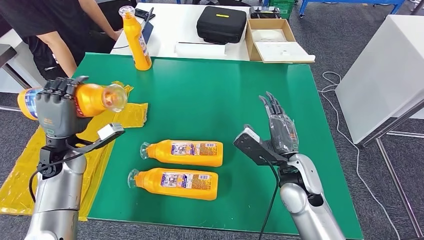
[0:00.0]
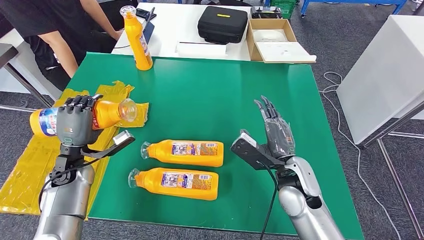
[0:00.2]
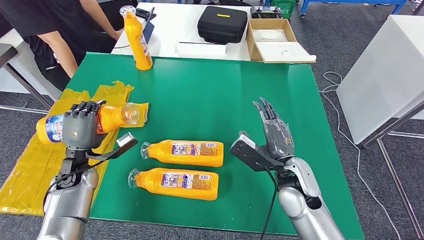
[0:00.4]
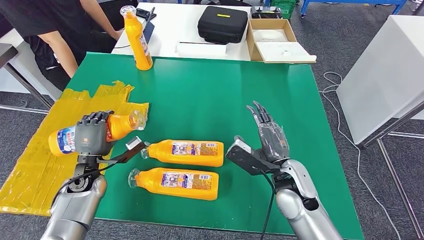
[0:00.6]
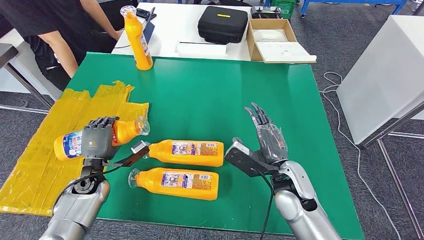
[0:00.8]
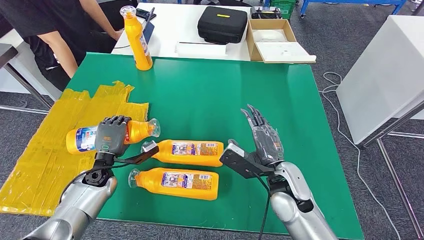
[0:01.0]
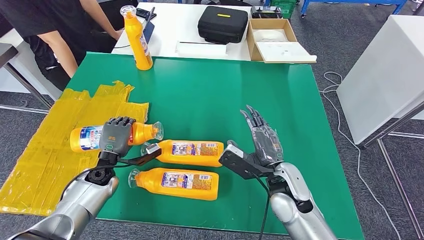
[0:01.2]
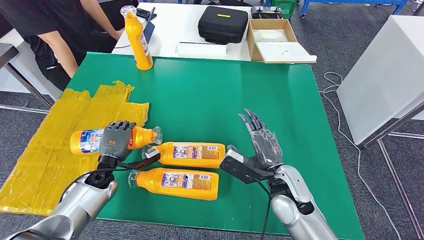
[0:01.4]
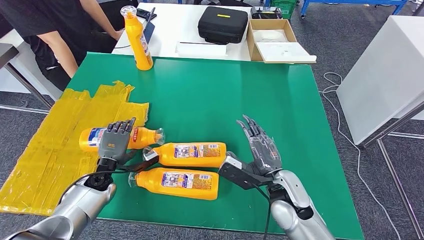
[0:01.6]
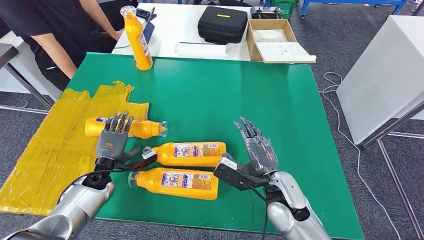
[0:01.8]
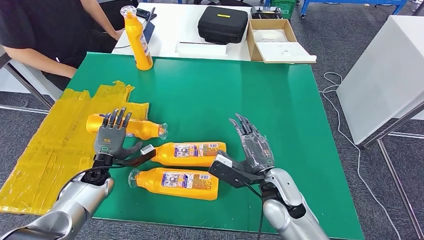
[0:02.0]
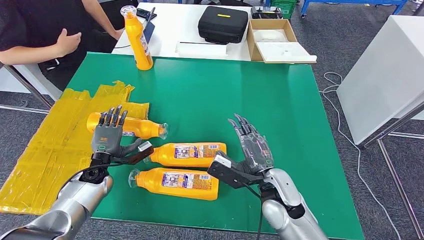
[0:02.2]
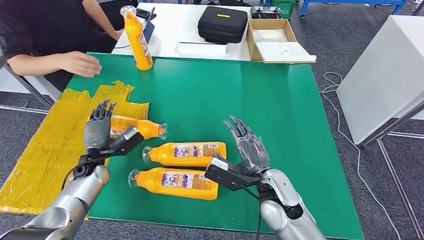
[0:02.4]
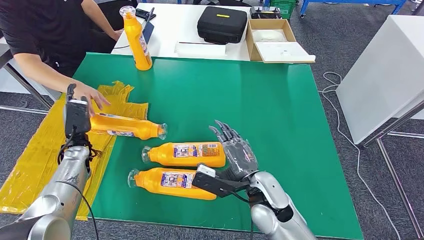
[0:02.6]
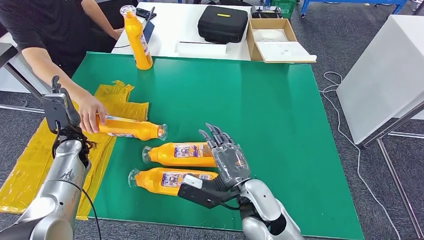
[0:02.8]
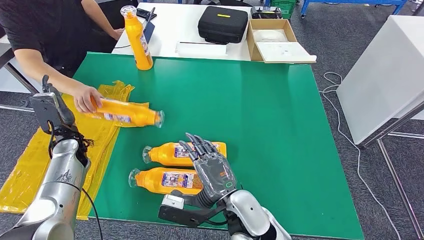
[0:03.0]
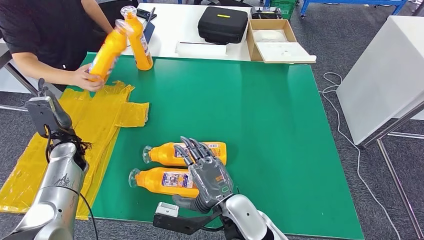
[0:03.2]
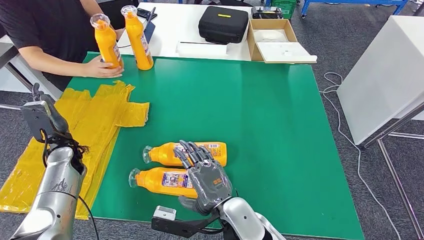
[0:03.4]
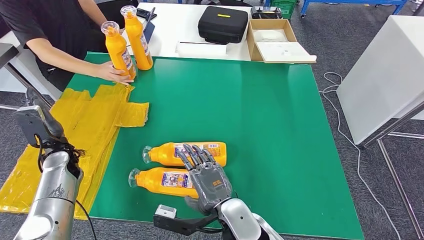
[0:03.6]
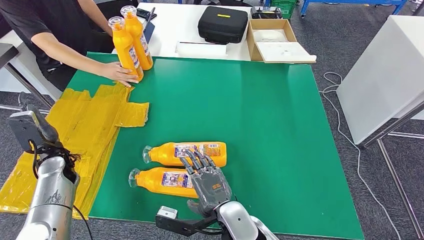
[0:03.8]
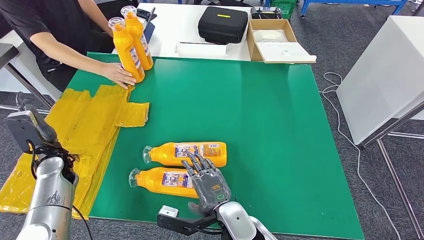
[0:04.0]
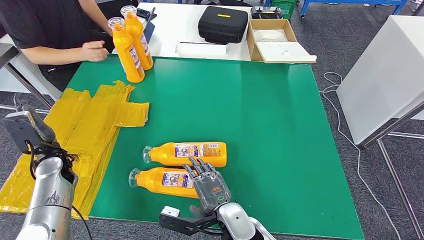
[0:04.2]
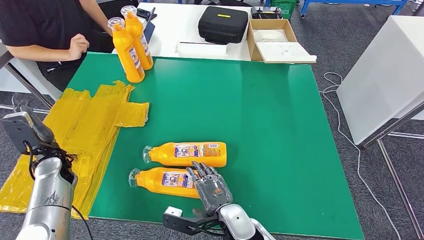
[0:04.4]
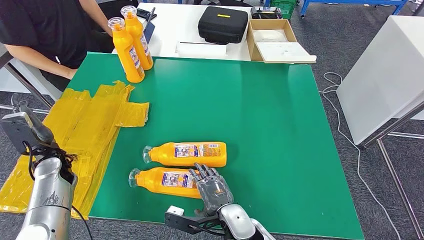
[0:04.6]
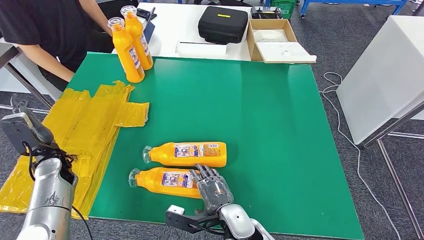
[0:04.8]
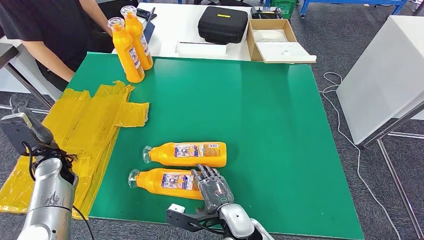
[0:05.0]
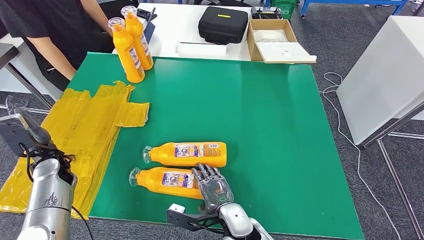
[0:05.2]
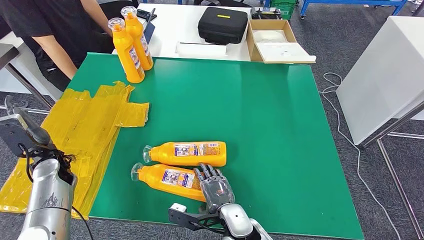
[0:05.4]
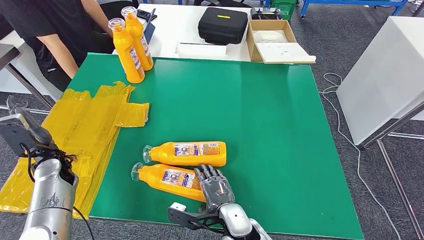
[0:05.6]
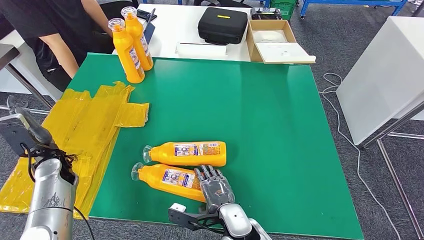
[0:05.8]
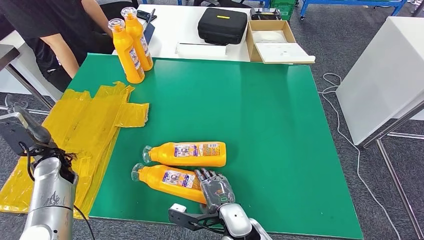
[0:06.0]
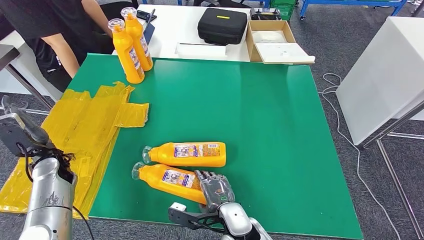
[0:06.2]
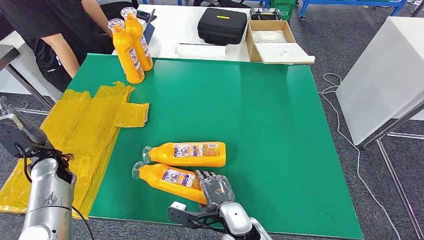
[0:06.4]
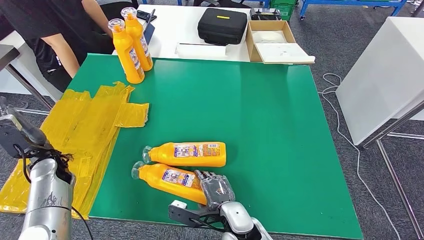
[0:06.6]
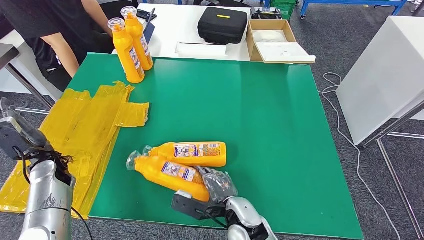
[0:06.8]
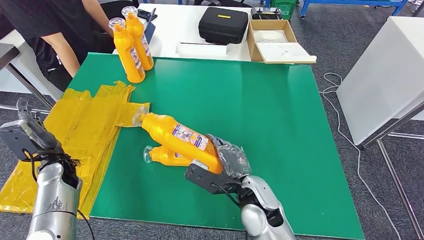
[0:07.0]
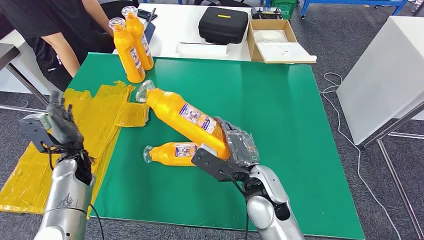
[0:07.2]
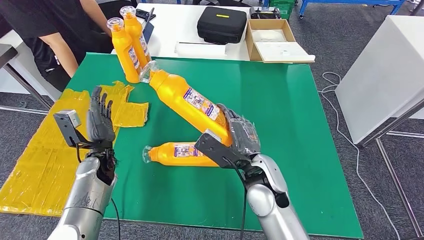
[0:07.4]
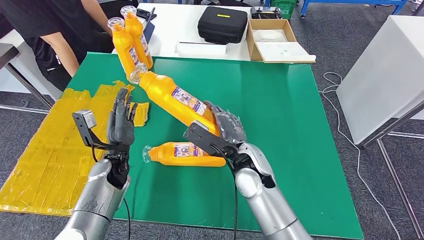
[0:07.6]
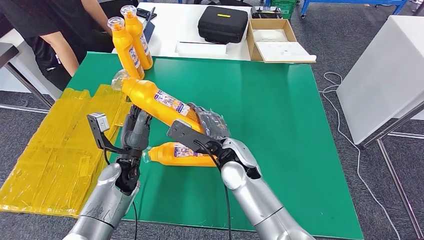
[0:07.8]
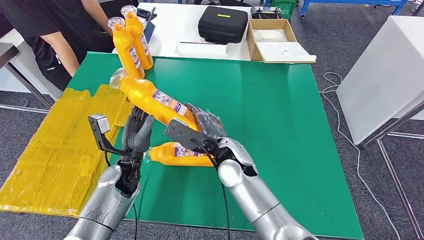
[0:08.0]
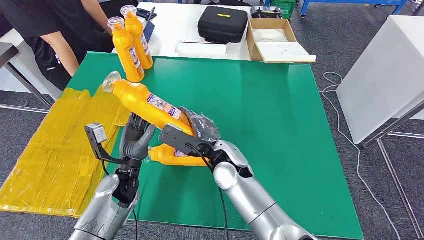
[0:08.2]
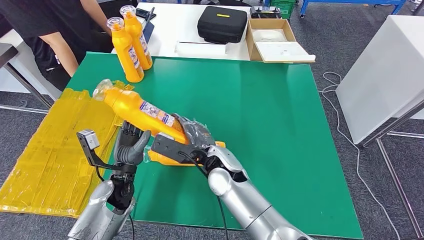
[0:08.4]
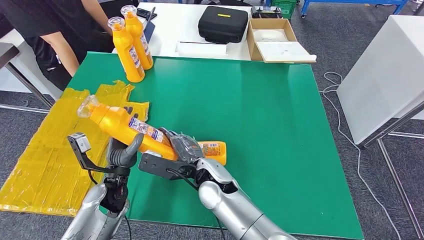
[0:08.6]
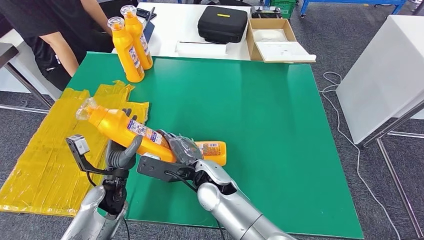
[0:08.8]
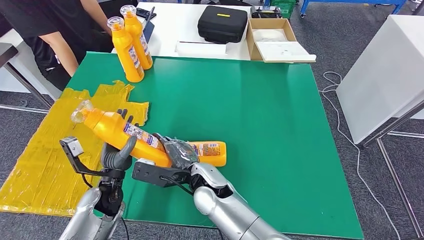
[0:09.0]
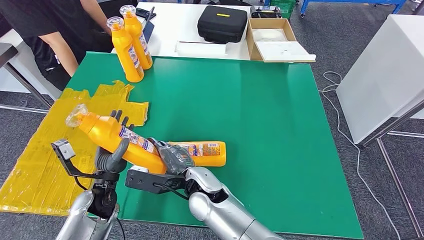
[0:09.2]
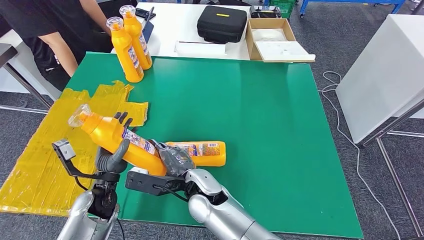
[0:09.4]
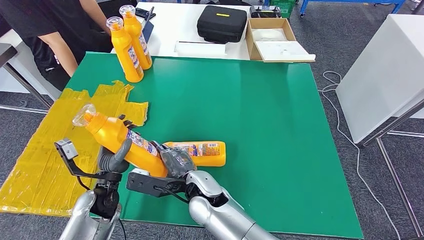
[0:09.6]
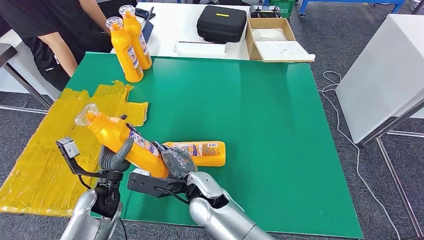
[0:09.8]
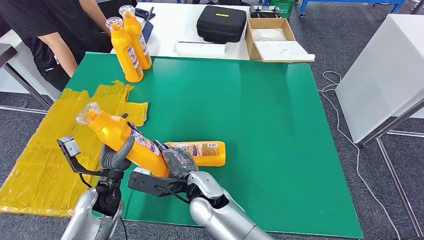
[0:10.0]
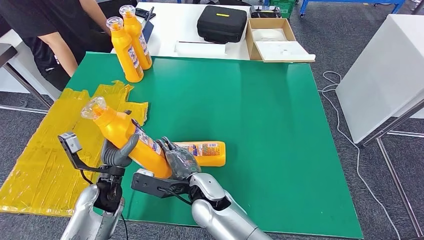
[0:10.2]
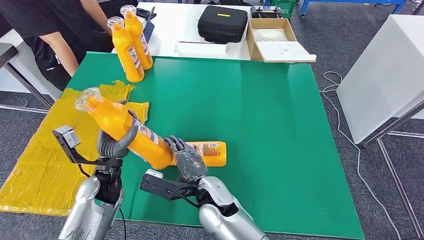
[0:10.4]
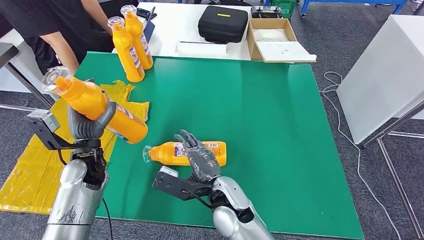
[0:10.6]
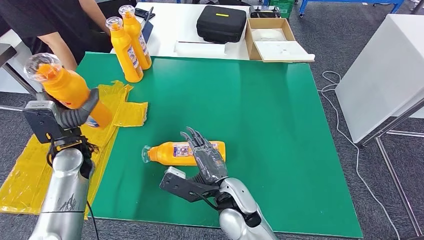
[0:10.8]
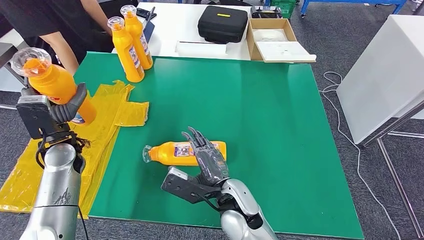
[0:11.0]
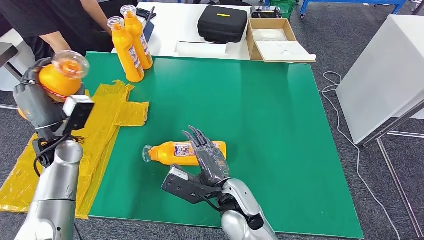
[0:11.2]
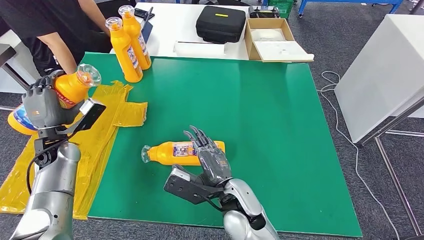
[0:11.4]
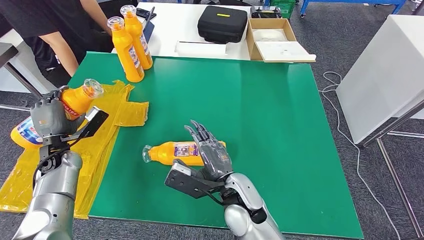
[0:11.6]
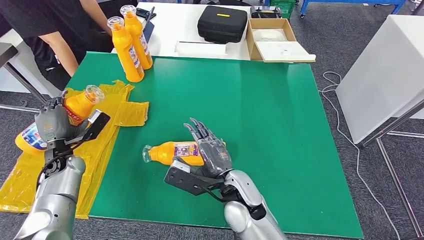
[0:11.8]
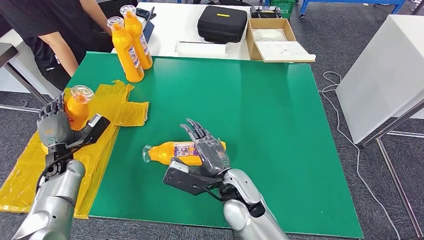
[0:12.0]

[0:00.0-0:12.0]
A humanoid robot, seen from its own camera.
Step, 0:00.0 to 0:02.4: Flip the fast-moving consumer goods bottle to the front side.
Step, 0:05.4 to 0:08.6: Pick up the fast-moving consumer goods bottle from the table.
0:03.0 to 0:04.4: The left hand changes place by about 5 cm, while the right hand is displaced downward by about 10 cm.
0:04.4 to 0:06.0: The hands stay close to where they were, moving slightly.
0:07.6 to 0:09.0: The right hand shifts roughly 10 cm to the left and downward. The left hand moves backward, some 5 cm.
0:09.0 to 0:10.4: The hands make only small movements.
0:10.4 to 0:12.0: The left hand heads to the left, covering about 15 cm, while the right hand ends up roughly 5 cm from where it was.

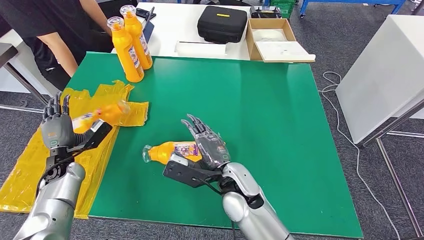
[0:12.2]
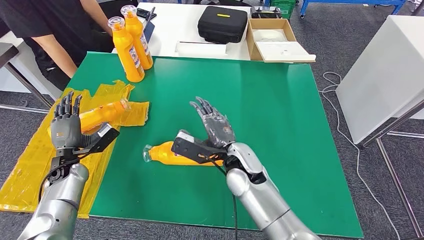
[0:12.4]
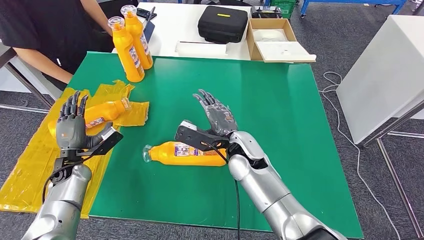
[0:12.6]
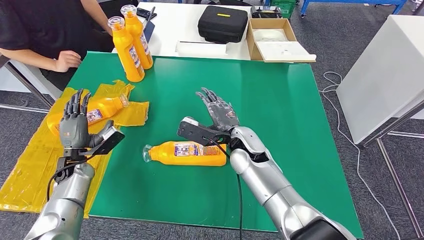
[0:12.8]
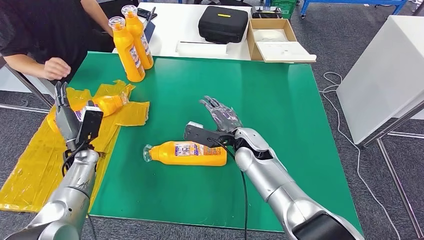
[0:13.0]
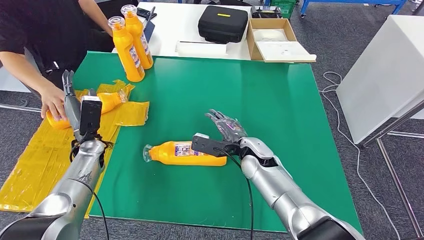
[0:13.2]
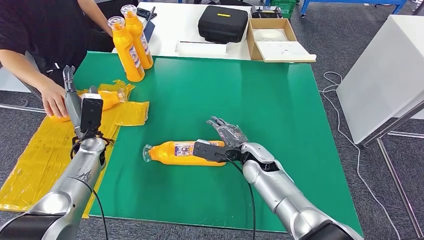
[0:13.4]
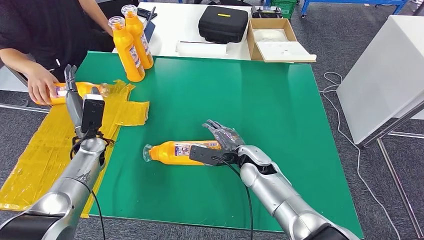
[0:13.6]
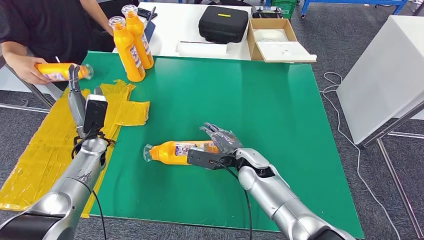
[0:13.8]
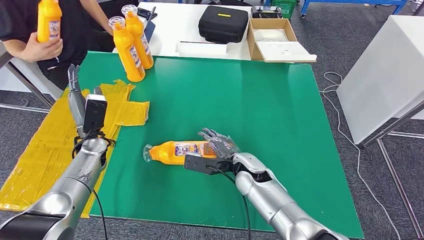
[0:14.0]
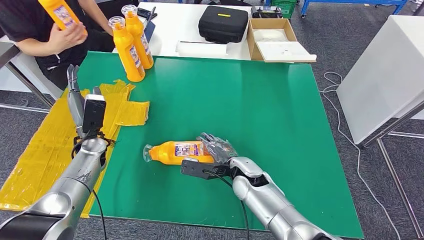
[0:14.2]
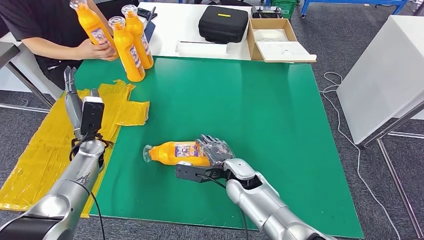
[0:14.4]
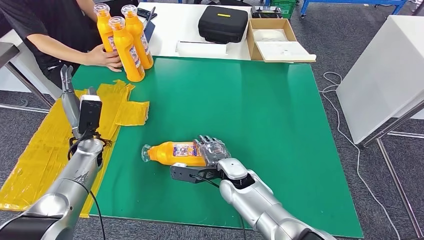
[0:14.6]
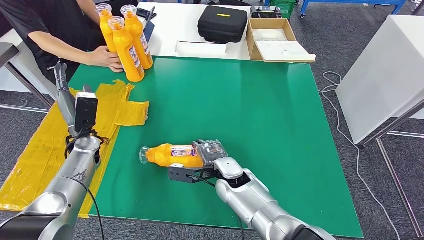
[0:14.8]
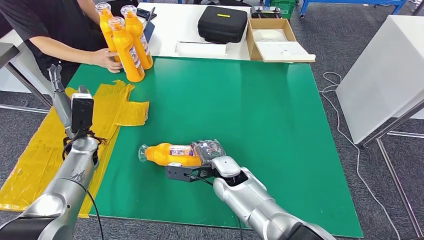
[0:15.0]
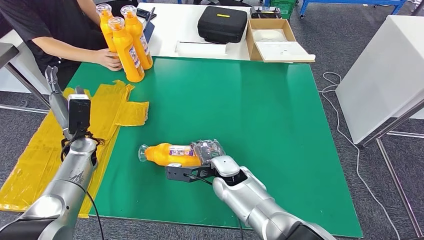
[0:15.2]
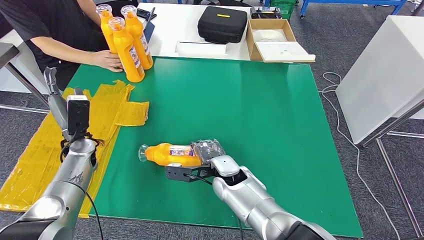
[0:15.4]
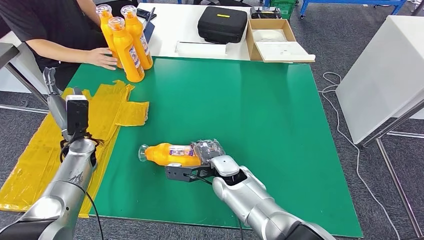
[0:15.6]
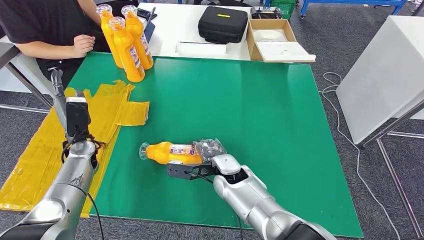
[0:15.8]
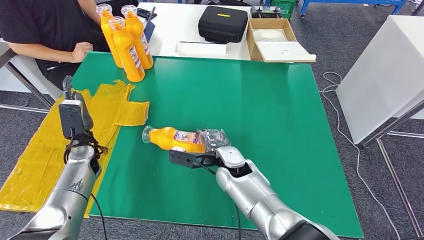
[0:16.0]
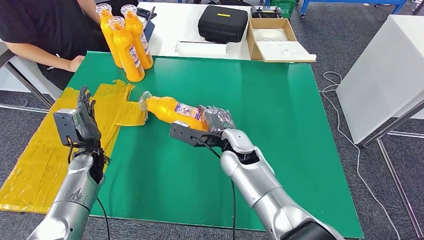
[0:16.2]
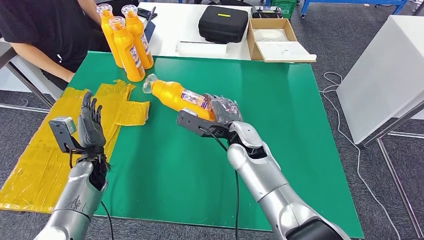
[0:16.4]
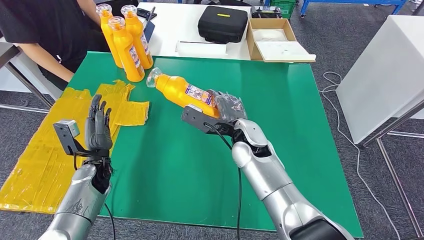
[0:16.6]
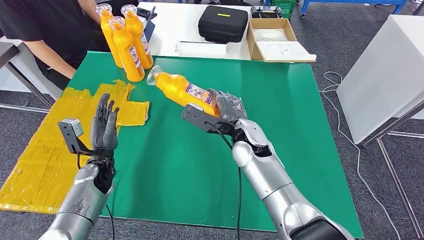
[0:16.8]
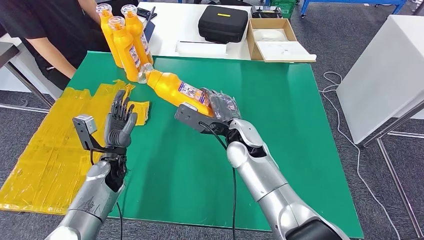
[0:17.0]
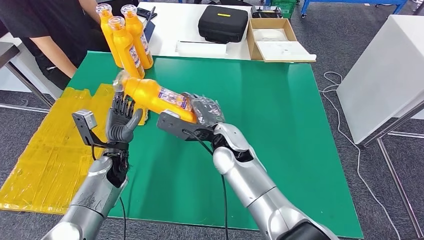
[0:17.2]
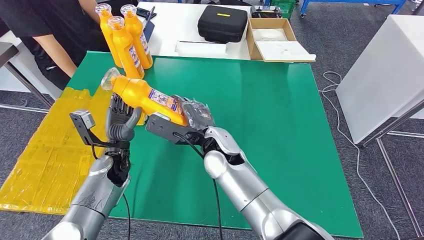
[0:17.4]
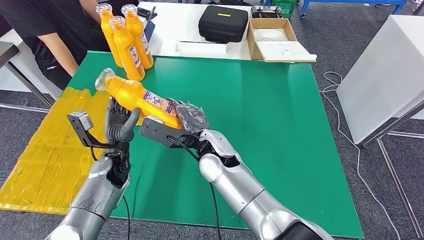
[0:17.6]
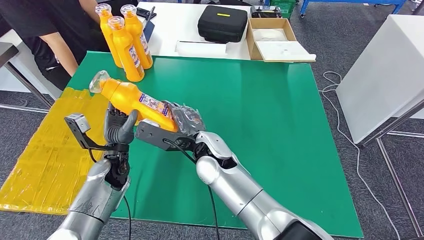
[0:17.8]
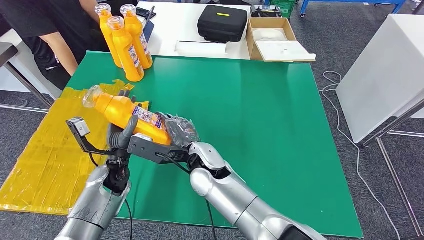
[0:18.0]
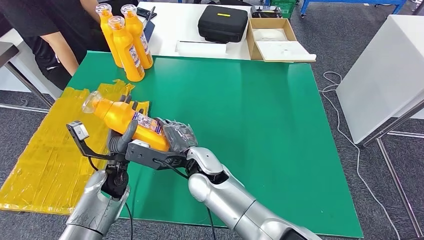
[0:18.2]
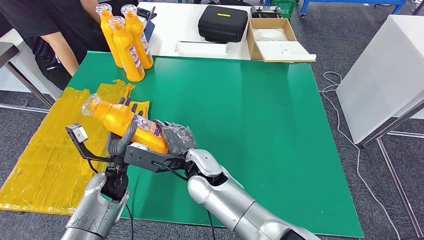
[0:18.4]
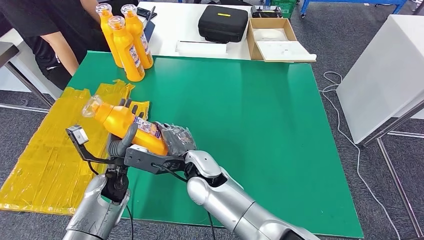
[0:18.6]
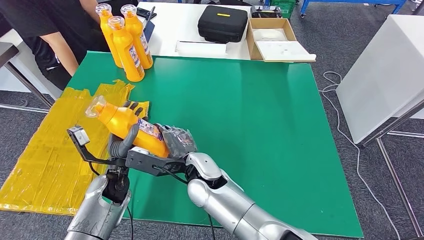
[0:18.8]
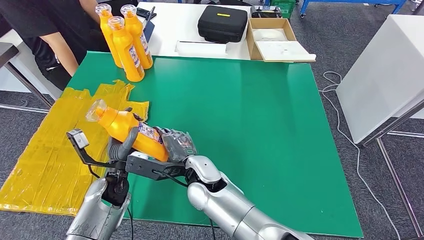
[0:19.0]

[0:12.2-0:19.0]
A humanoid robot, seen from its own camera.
0:13.6 to 0:15.0: The right hand heads to the left, covering approximately 5 cm.
0:17.6 to 0:19.0: The left hand changes place by some 5 cm; the right hand ends up approximately 5 cm from where it was.
